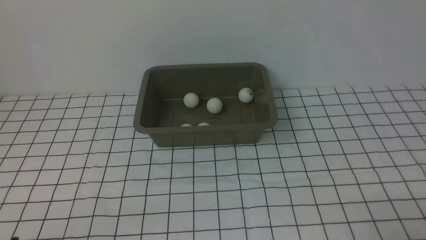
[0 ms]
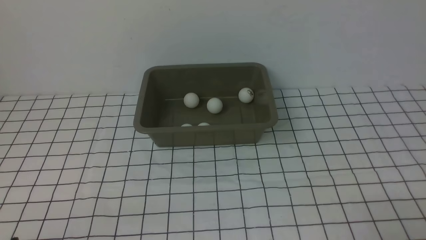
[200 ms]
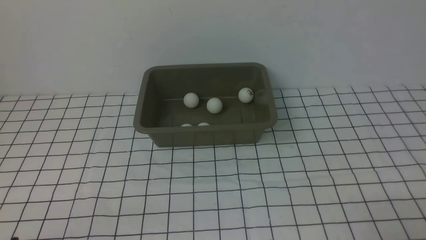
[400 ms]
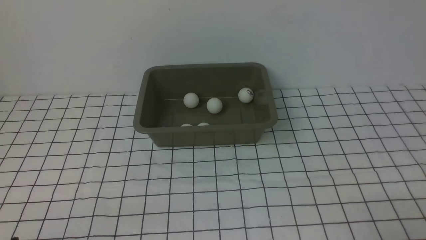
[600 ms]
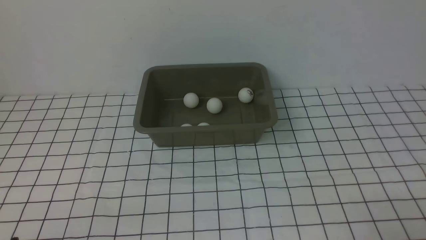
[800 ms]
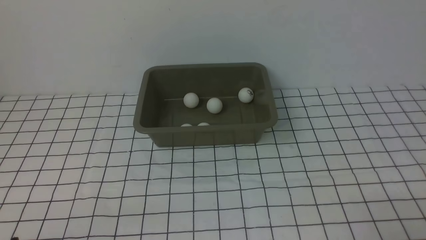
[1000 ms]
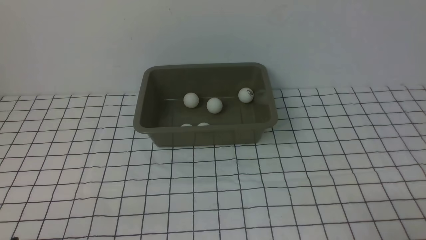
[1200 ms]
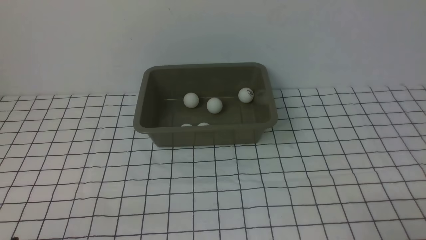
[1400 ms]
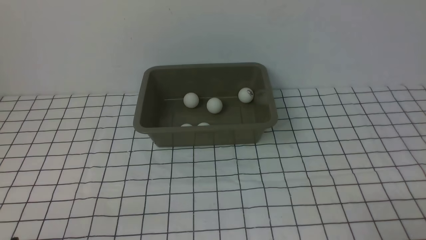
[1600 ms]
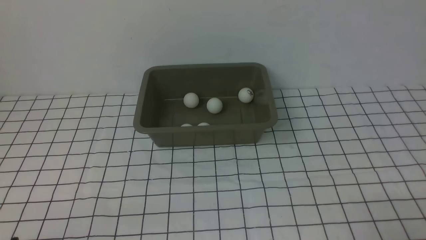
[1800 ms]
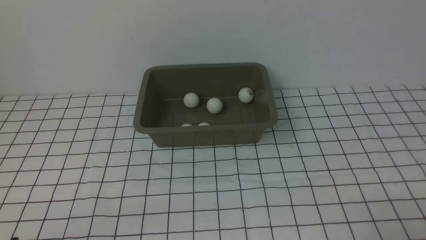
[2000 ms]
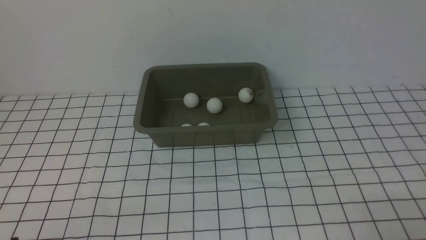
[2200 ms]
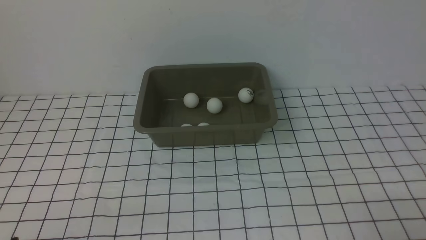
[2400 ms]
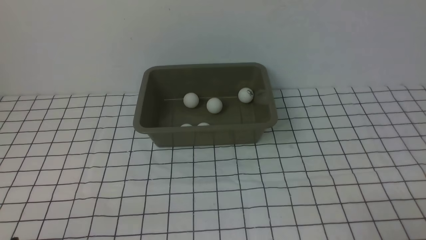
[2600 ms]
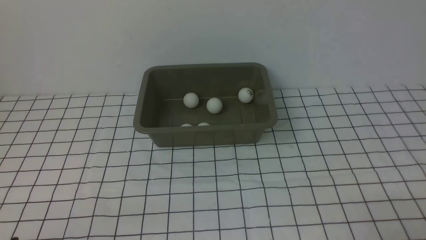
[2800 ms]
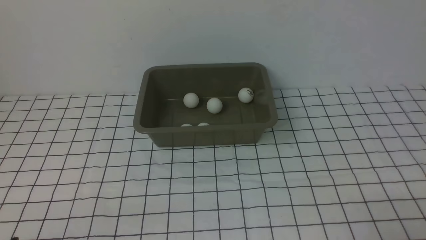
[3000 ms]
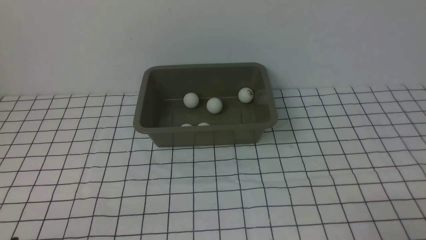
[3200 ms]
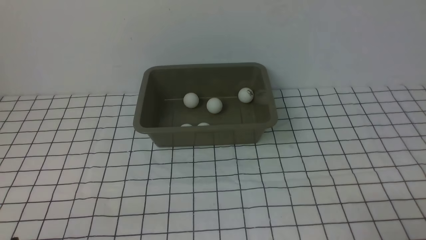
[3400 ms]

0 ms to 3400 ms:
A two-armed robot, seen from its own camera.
0 ms to 3400 ms: The two grippers keep their place.
